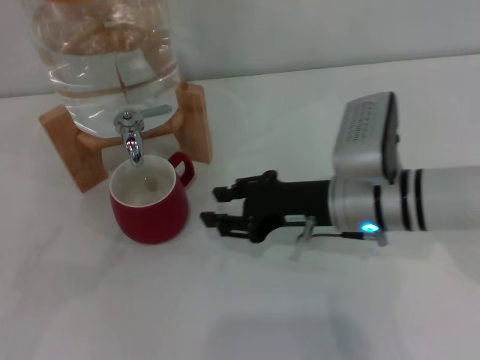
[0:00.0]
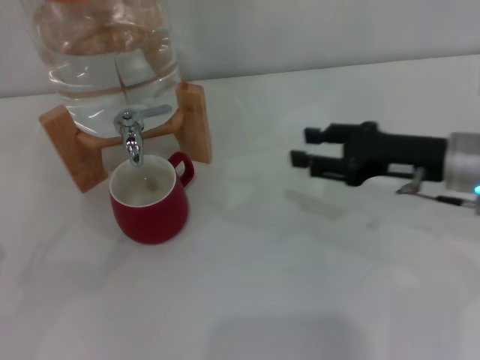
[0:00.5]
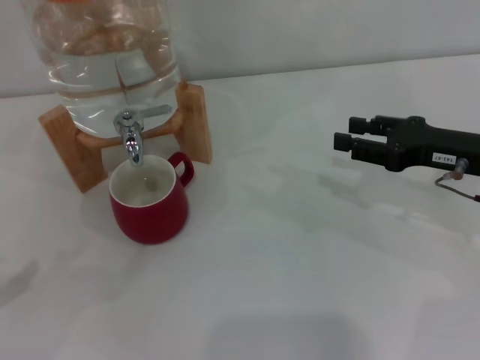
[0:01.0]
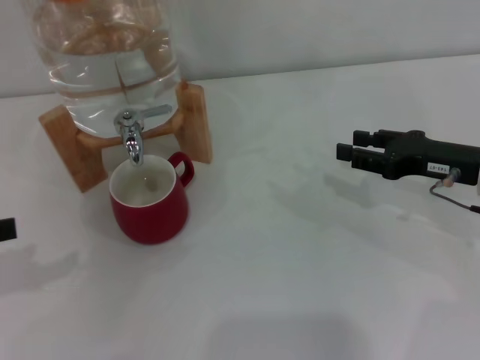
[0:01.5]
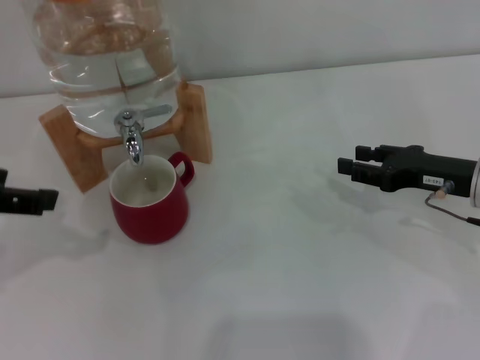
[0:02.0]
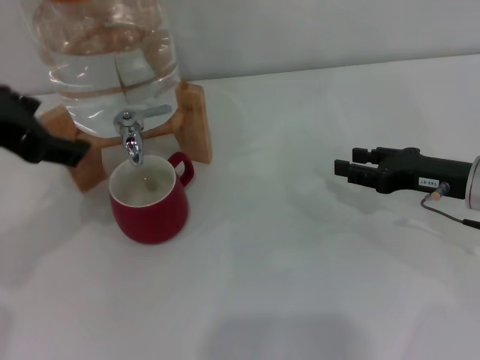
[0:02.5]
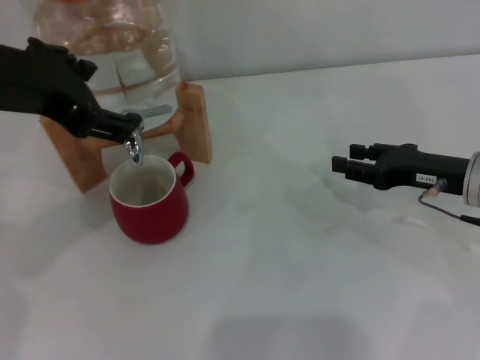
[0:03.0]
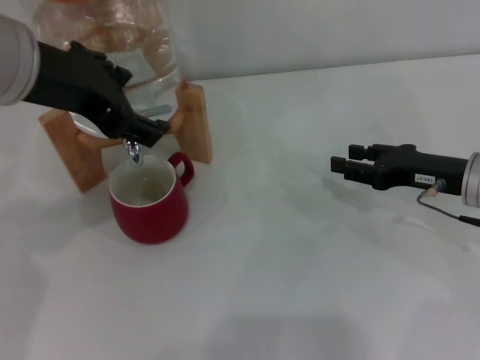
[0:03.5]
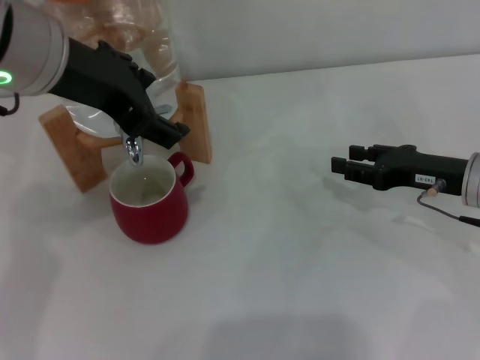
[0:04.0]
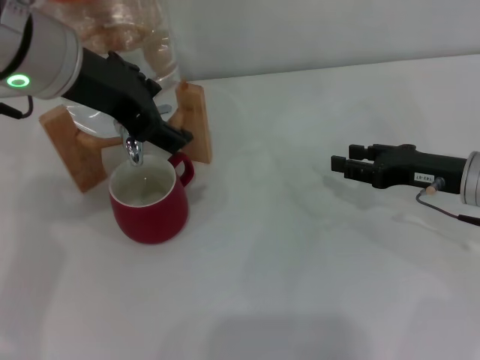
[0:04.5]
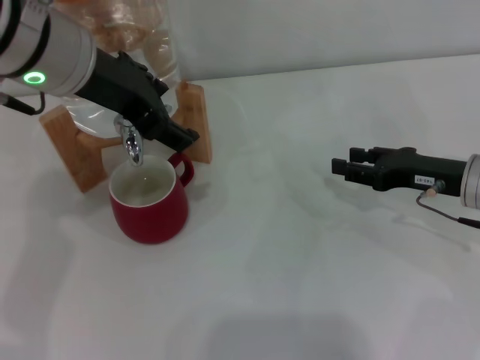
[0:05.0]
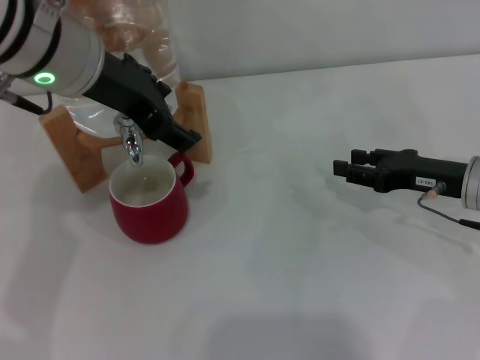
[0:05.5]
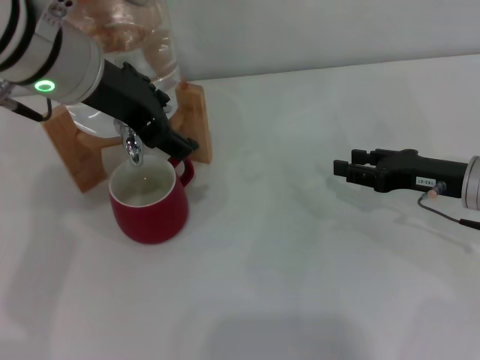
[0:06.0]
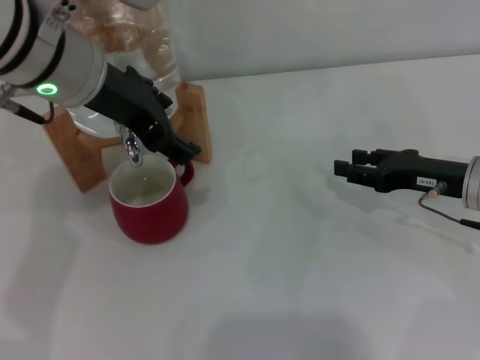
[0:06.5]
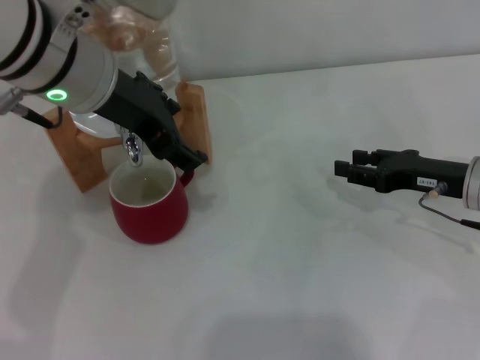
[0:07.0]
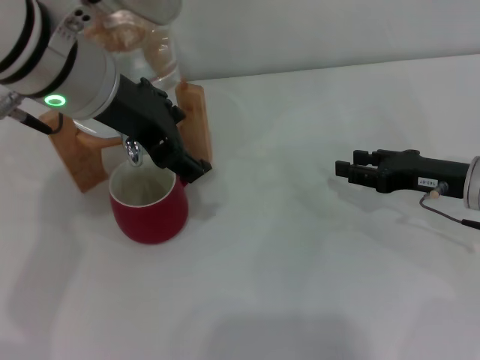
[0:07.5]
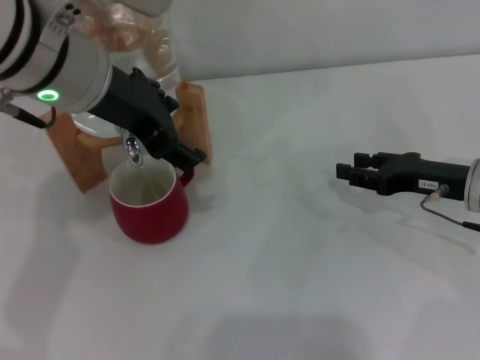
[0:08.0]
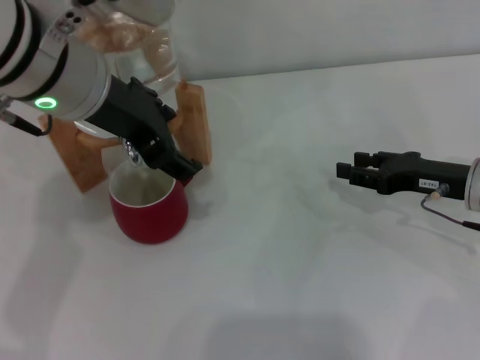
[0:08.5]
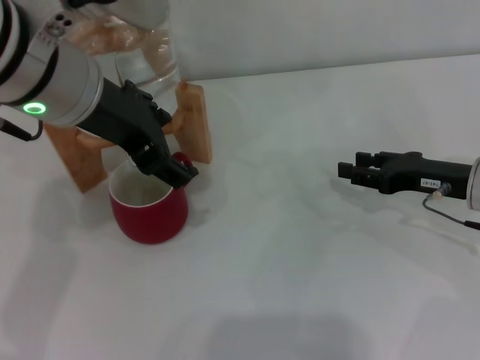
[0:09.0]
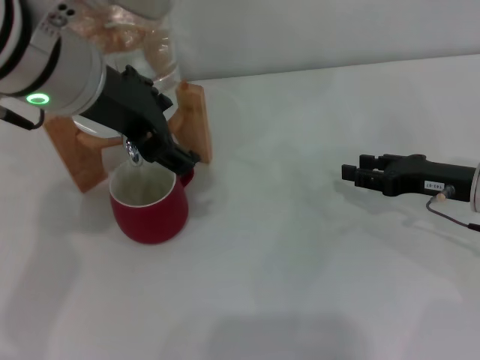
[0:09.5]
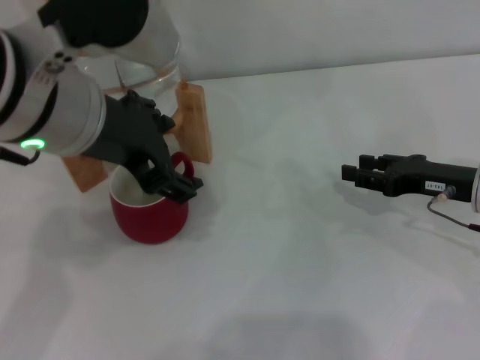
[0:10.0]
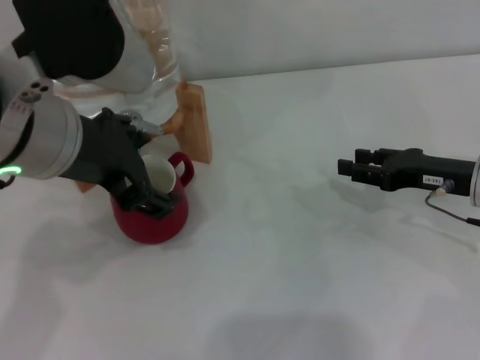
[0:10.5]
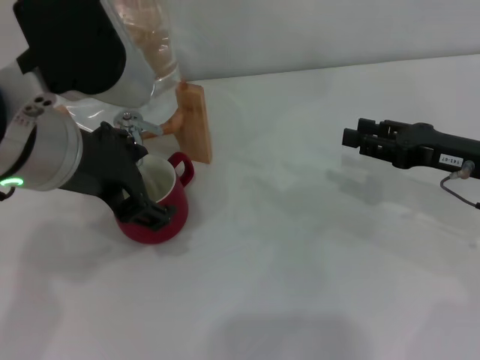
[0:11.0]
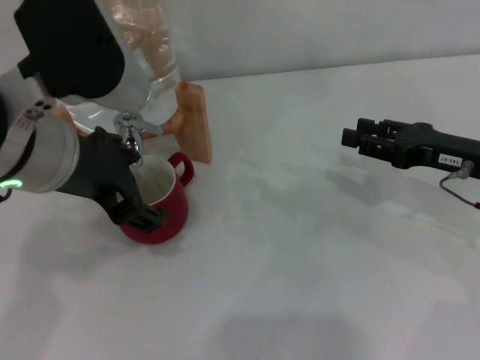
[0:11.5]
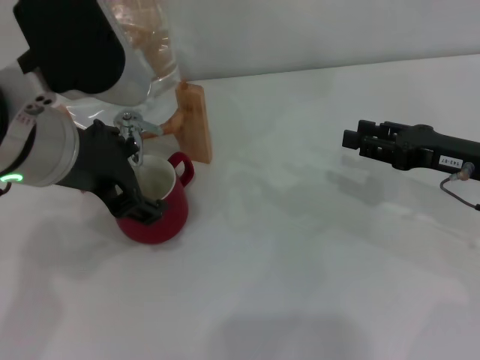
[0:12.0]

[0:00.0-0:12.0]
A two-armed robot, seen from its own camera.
Task of the whole recording: the right gripper pick up the red cup and place it horizontally under the faucet, the left gripper turn on the faucet to fill the cup, and then turn off the faucet.
Step, 0:00.0 to 0:10.5: Open the dispenser valve and fill the cup with water with the left gripper.
0:00.0 to 0:02.0: The left gripper is displaced upward, to the right and forward by about 25 cm, while the right gripper shifts about 15 cm to the right.
0:02.0 to 0:04.0: The left gripper is displaced to the right and forward by about 15 cm.
0:04.0 to 0:08.0: The grippers make only small movements.
0:08.0 to 0:10.0: The left gripper goes some 5 cm backward.
0:10.0 to 0:12.0: The grippers stay close to where they were, moving slightly.

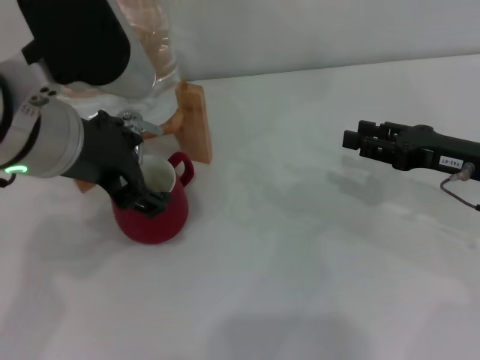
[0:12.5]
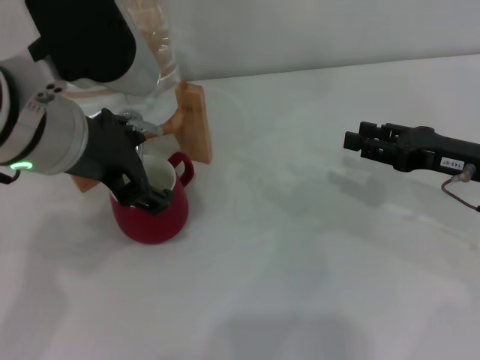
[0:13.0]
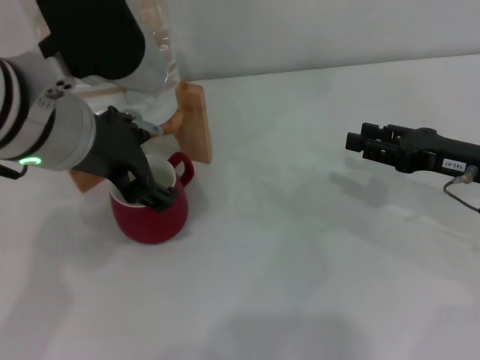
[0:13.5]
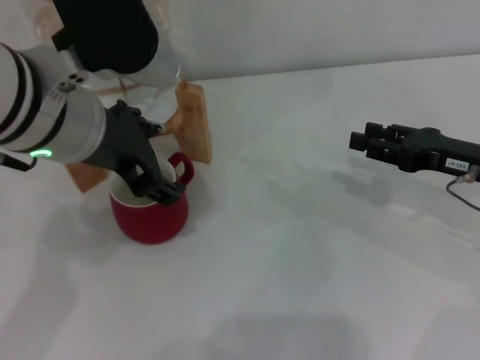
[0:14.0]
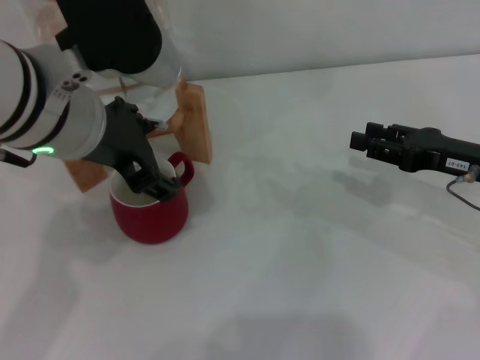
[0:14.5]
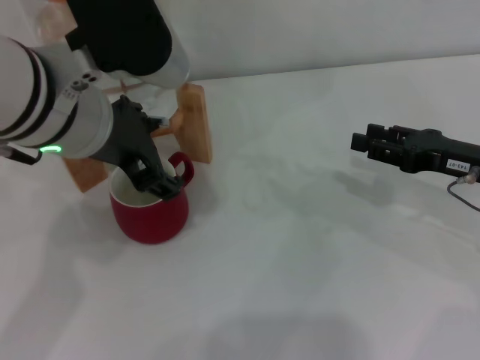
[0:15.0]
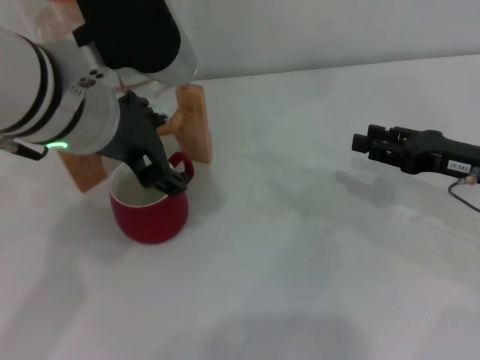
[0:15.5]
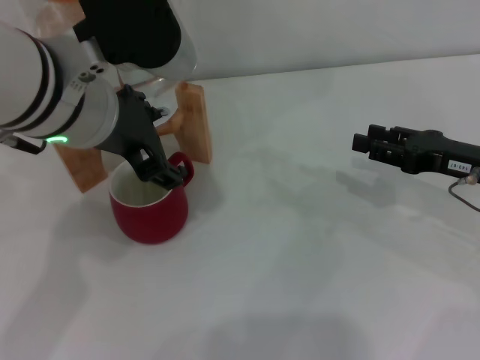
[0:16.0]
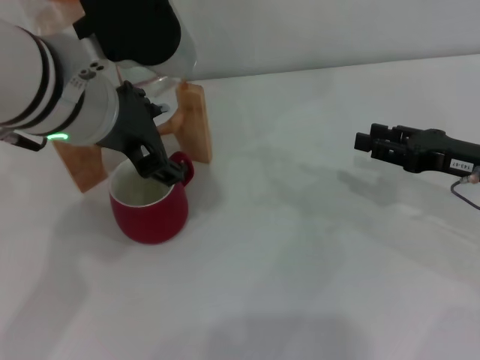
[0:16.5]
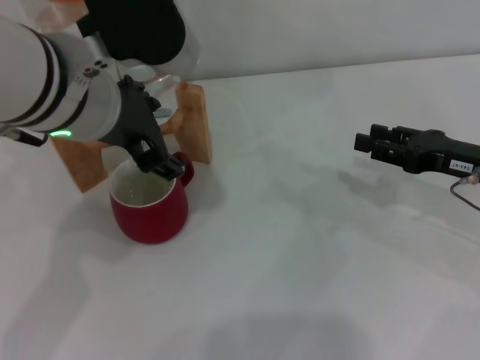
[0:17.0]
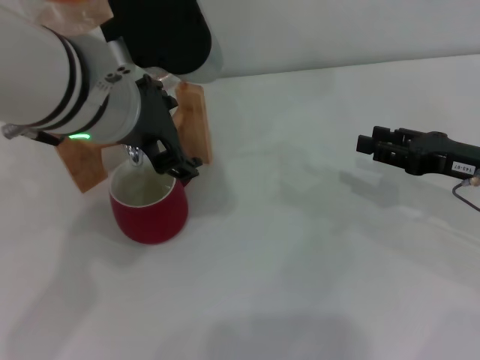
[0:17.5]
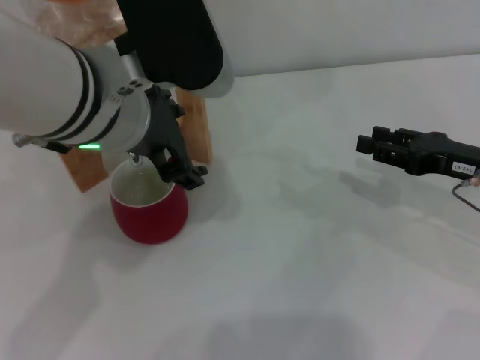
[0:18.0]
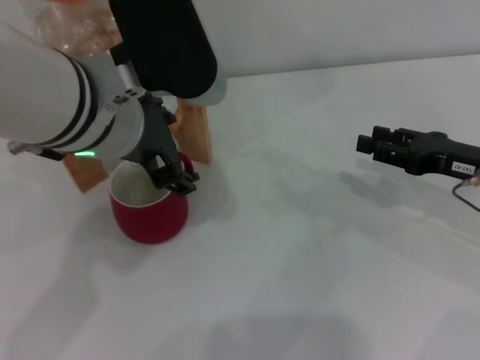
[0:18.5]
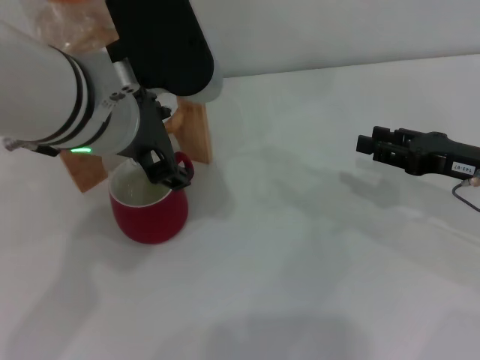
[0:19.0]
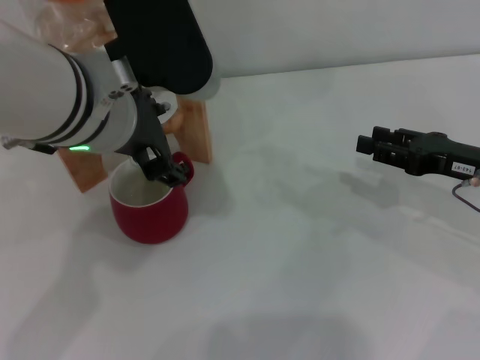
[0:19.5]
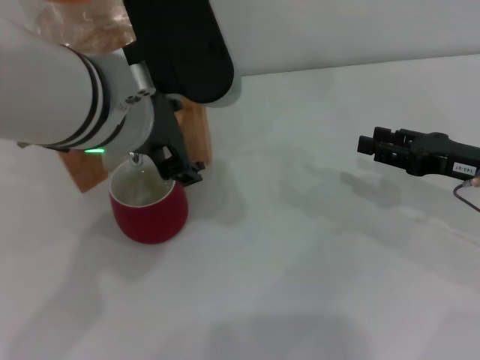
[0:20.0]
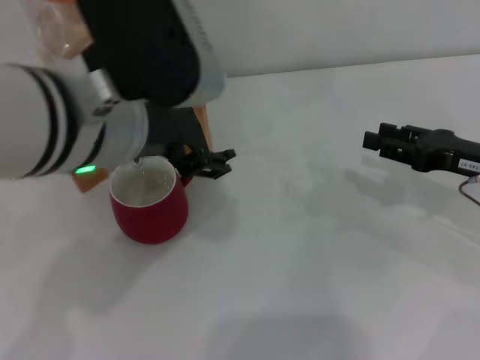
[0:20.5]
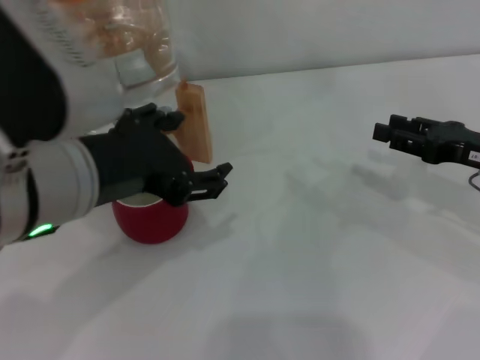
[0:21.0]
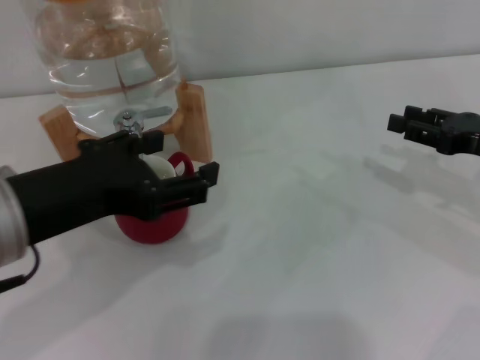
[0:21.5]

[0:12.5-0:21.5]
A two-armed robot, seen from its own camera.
Task of the whole recording: the right gripper pick up the red cup and place it horizontally under the faucet, the left gripper turn on the faucet to fill the cup, and then turn off the faucet.
Step, 0:12.5 to 0:20.5: Close the dispenser valve with the left gripper.
0:12.5 to 0:14.5: The grippers move only a little.
0:14.5 to 0:17.0: Both grippers stay put.
0:17.0 to 0:19.5: The grippers stay close to where they were, moving slightly.
0:19.5 to 0:21.5: The left gripper heads to the left and backward, covering roughly 15 cm.

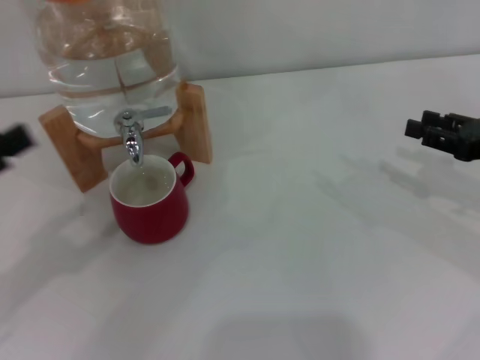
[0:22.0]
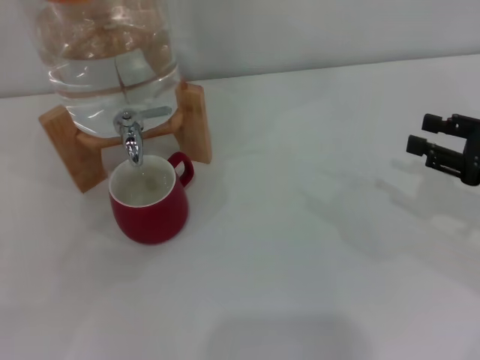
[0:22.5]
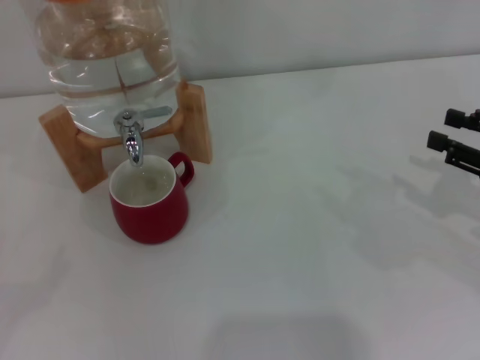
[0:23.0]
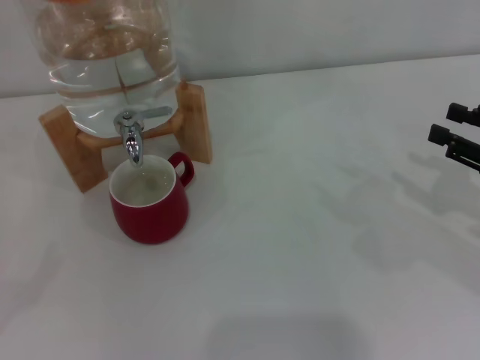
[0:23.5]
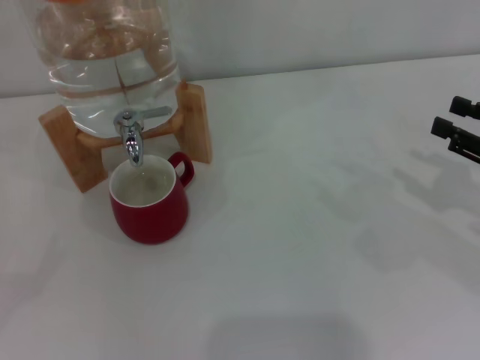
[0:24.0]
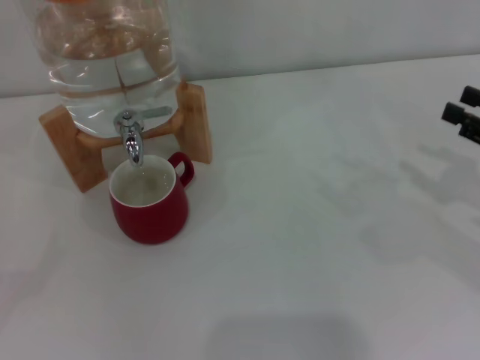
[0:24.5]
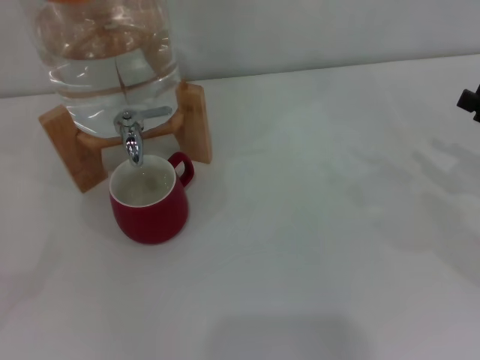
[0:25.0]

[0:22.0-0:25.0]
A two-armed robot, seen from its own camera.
Task of the whole recording: the right gripper pick up the red cup and place it horizontally under the faucet, the left gripper turn on the faucet to fill the cup, and then turn off the faucet.
0:22.0 to 0:23.5: The left gripper is displaced to the left and downward by approximately 15 cm.
0:23.5 to 0:25.0: There are only small adjustments of the grippers.
